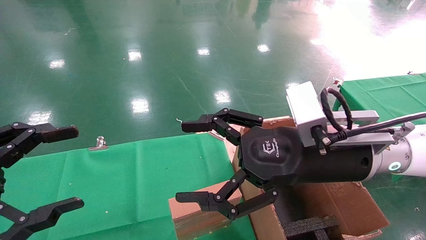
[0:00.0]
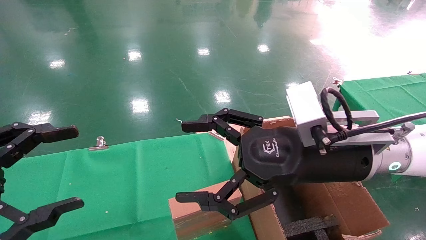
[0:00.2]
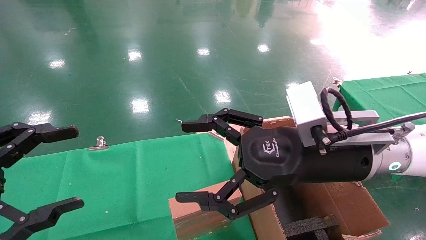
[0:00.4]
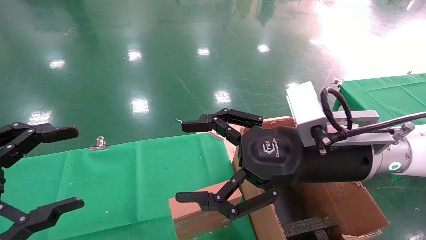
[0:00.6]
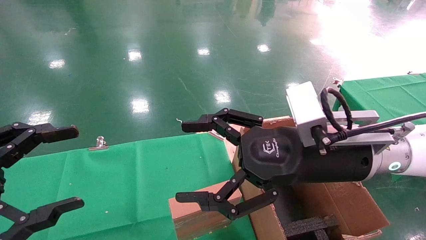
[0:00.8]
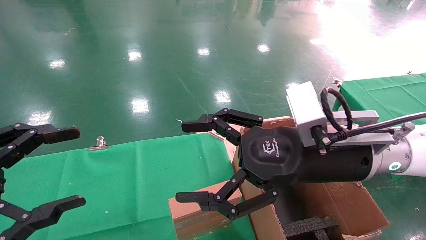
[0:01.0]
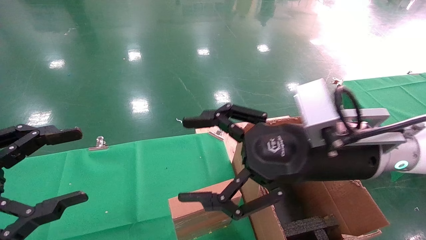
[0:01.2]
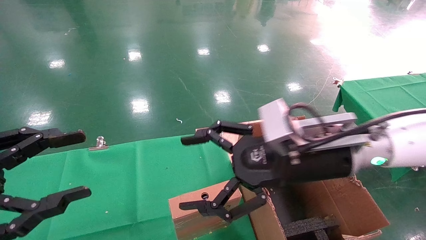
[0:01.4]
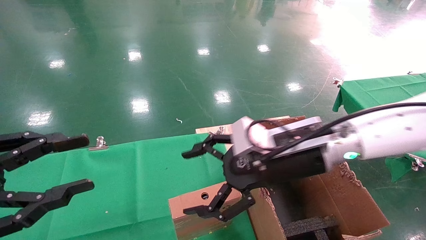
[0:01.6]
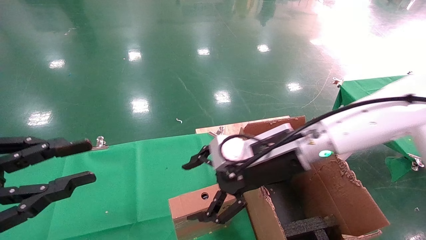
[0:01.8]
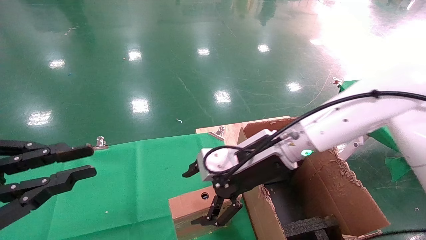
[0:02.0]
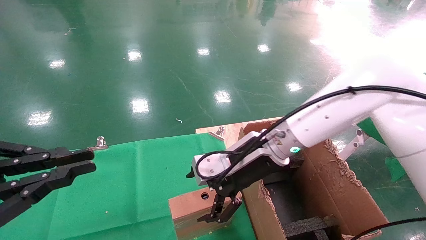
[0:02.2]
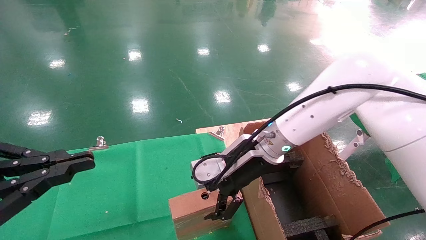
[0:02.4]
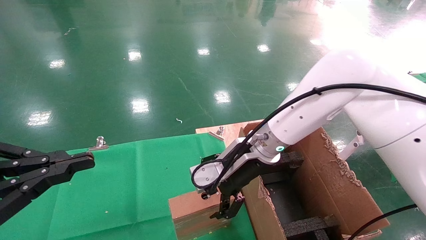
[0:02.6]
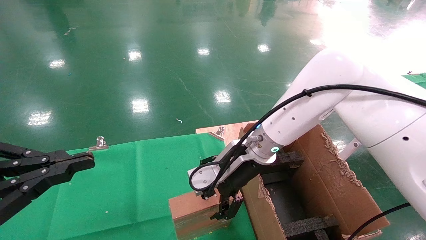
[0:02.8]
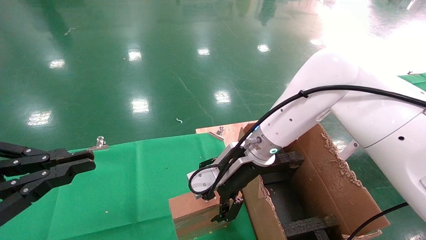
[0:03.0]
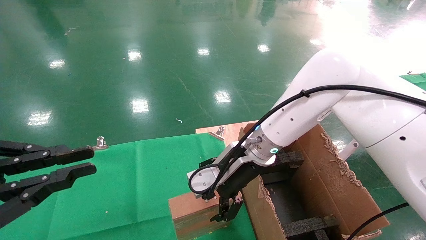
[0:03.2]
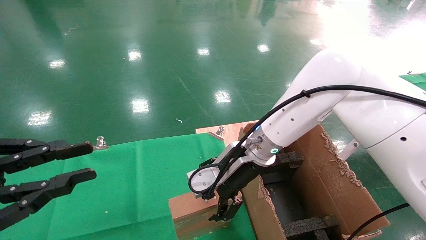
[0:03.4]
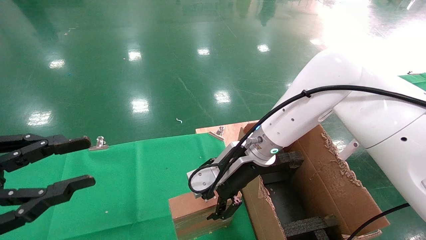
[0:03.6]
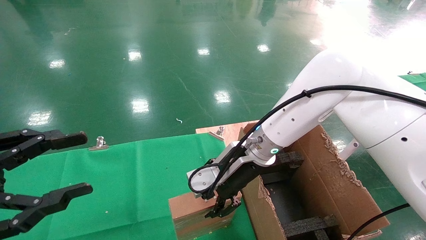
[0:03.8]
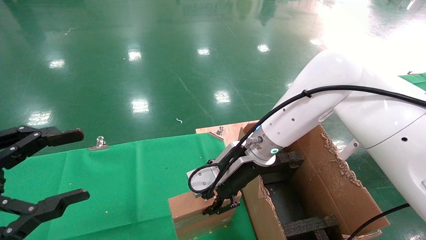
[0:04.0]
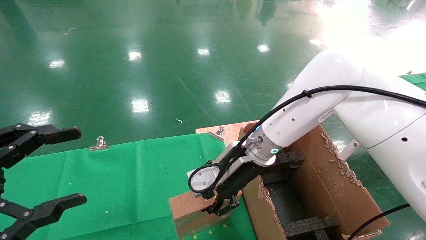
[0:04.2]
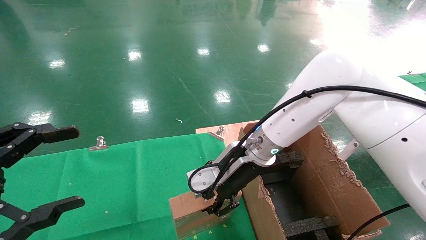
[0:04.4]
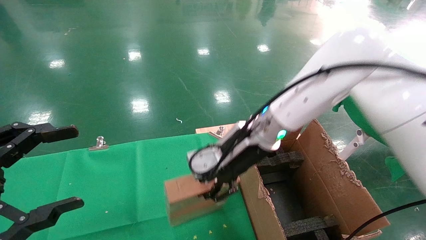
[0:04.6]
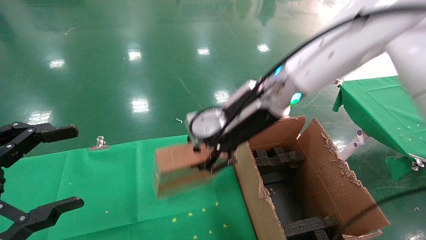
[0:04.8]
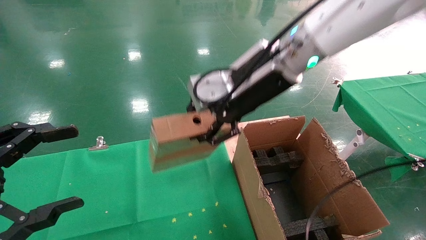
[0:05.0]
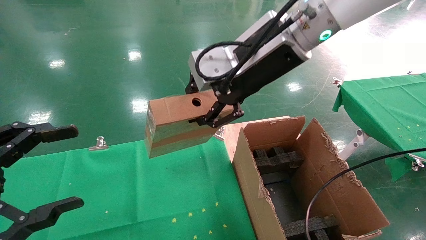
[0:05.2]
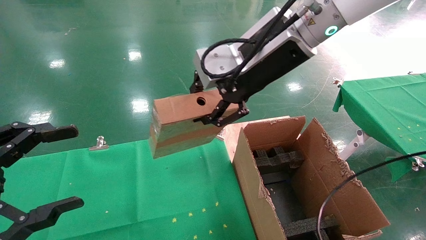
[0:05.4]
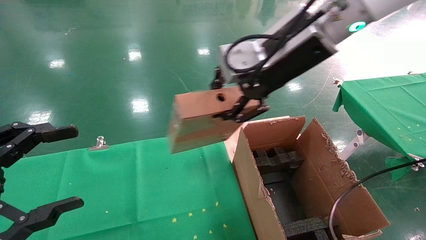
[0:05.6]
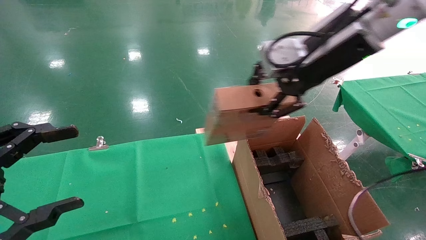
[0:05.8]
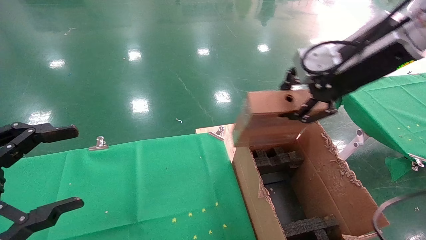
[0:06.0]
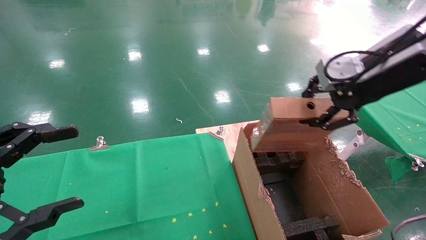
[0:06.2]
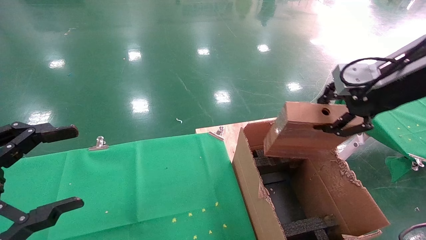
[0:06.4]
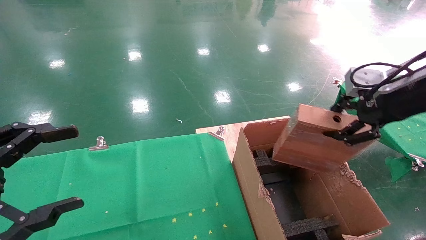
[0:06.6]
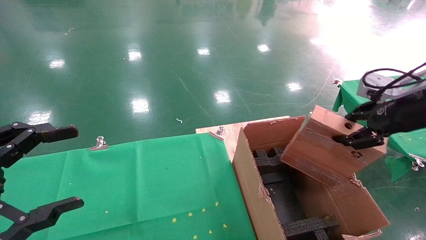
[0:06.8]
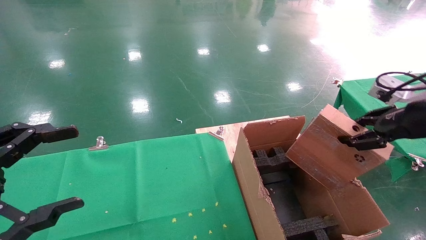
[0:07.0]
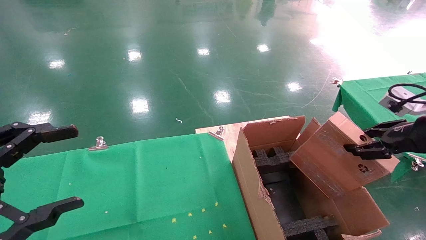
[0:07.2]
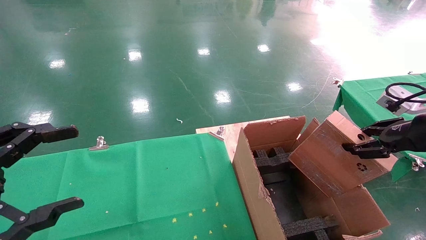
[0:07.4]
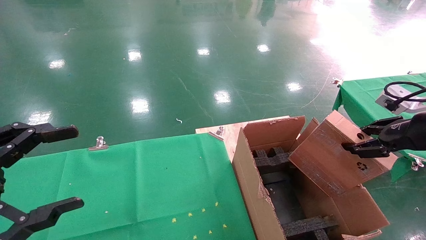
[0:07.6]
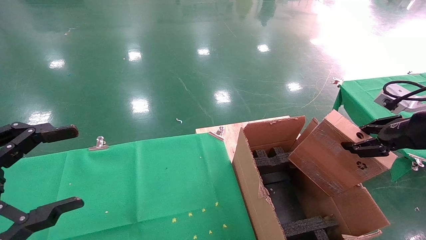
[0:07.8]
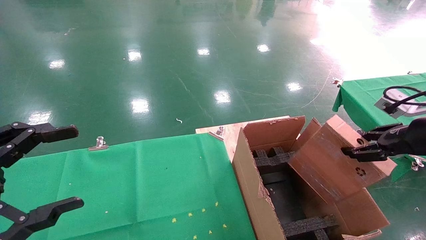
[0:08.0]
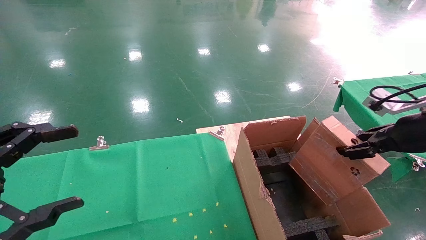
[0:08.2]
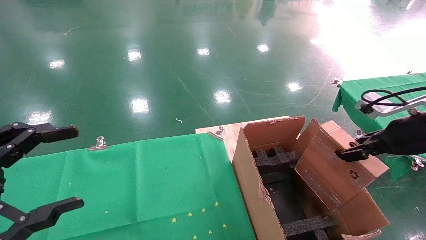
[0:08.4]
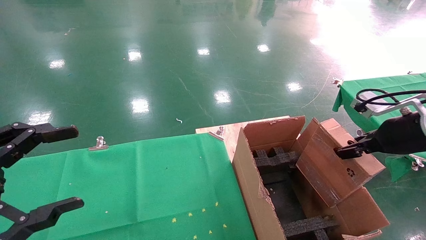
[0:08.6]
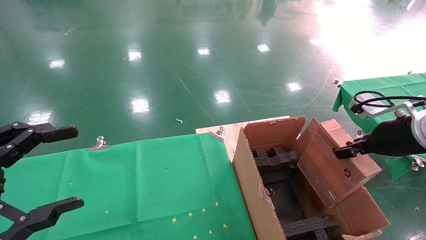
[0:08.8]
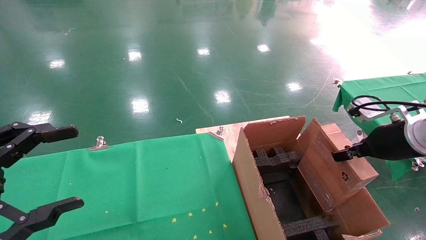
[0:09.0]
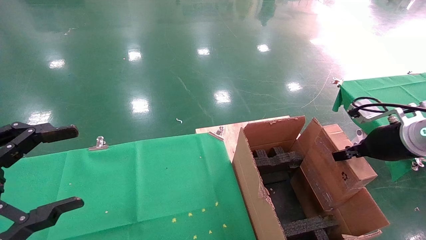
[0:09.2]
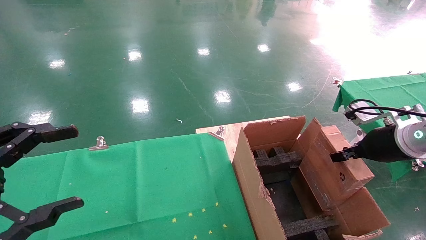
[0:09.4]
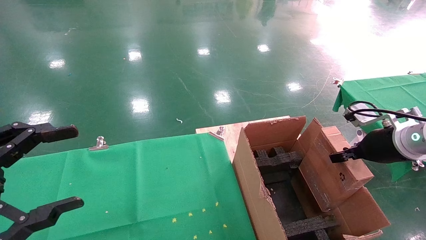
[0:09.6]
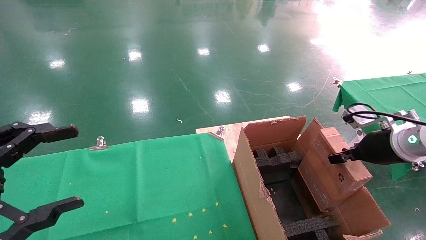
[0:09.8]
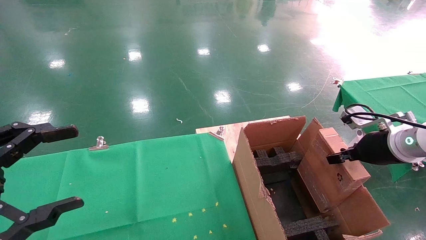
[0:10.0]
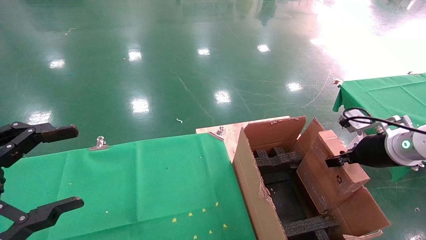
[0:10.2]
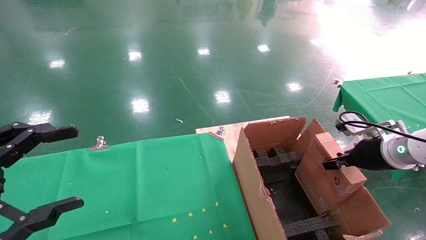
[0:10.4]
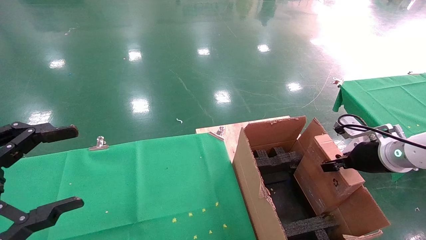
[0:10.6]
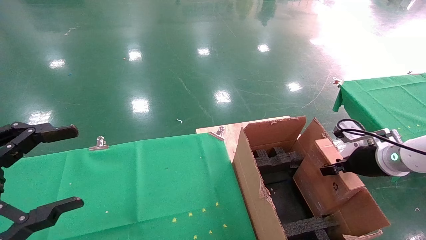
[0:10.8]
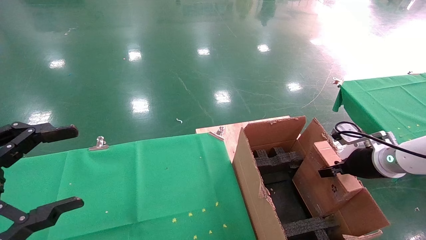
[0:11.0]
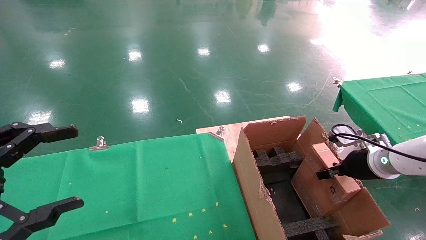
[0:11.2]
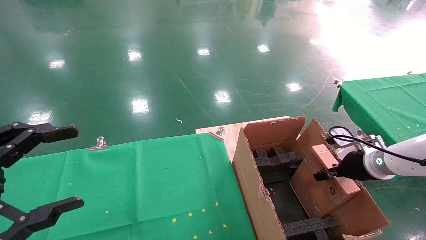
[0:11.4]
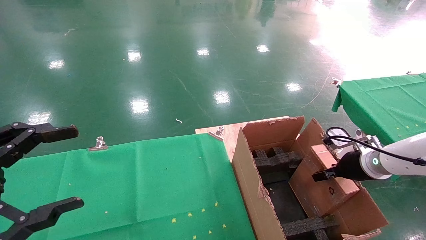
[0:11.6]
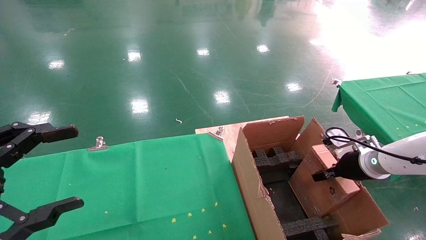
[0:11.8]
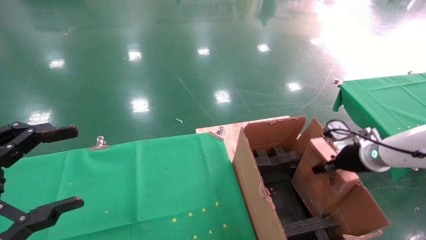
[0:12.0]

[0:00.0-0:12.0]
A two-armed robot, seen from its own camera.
Task of the whole recording: using a robotic arm to pick up a cardboard box and palace it the carton.
Step, 0:01.4 to 0:04.2: Pick up the mouse and the power cord paper box.
0:00.0 to 0:01.6: The right gripper shifts some 5 cm forward, while the left gripper closes its fingers.
0:01.6 to 0:03.0: The right gripper moves forward and to the left, roughly 10 cm; the left gripper closes up.
0:03.0 to 0:04.4: The right gripper closes its fingers; the left gripper opens.
0:04.4 to 0:06.0: The right gripper heads upward, to the right and backward, covering roughly 25 cm.
0:06.0 to 0:07.6: The right gripper goes some 20 cm to the right and downward.
0:07.6 to 0:09.0: The right gripper shifts by roughly 10 cm.
0:09.0 to 0:10.4: The right gripper is displaced downward by roughly 5 cm.
0:10.4 to 0:12.0: The right gripper moves about 5 cm.

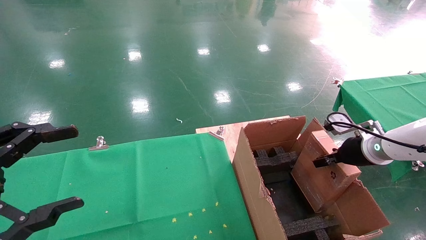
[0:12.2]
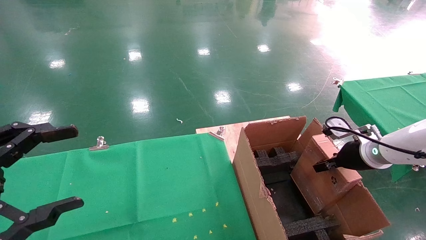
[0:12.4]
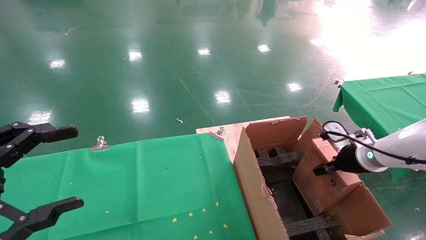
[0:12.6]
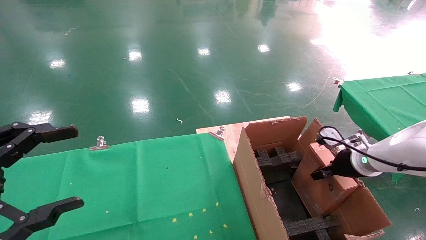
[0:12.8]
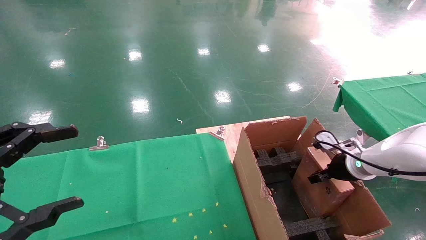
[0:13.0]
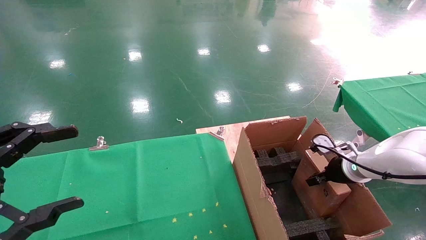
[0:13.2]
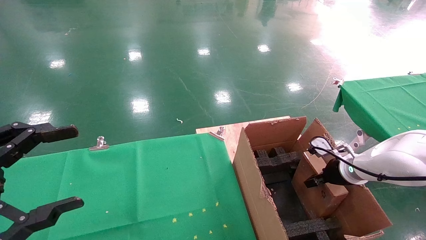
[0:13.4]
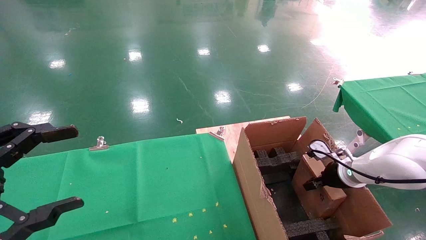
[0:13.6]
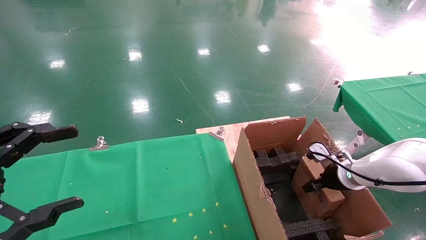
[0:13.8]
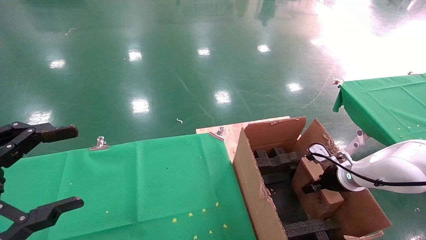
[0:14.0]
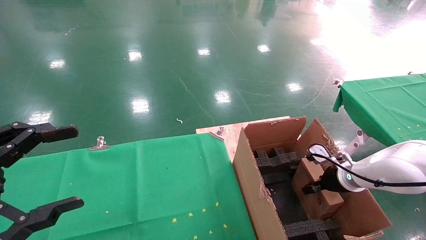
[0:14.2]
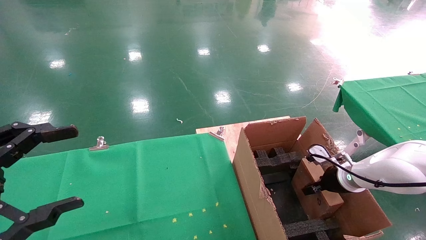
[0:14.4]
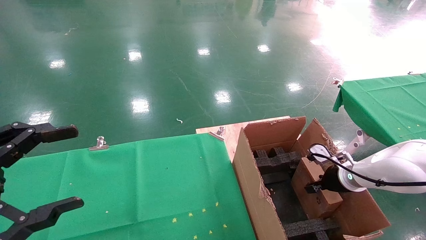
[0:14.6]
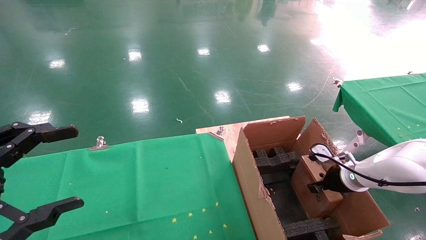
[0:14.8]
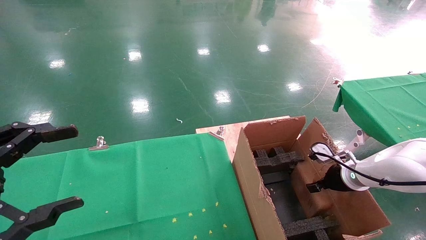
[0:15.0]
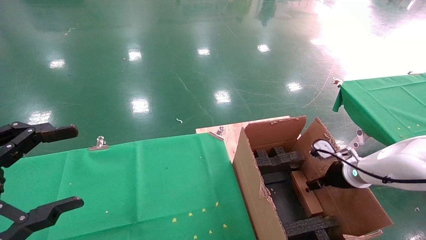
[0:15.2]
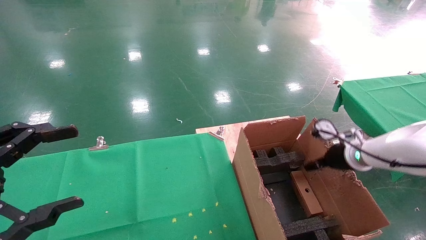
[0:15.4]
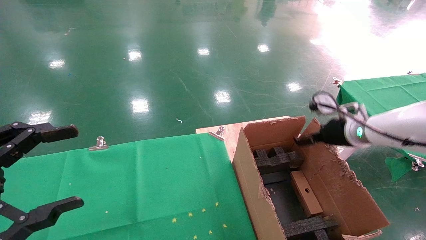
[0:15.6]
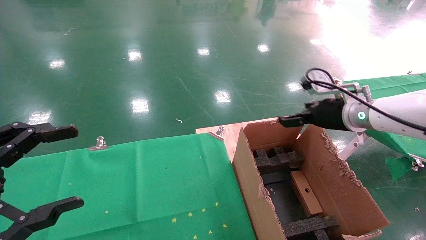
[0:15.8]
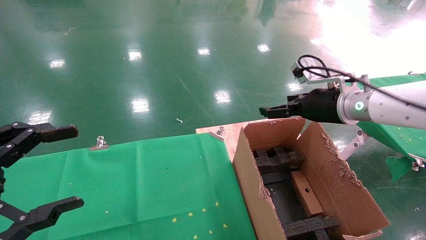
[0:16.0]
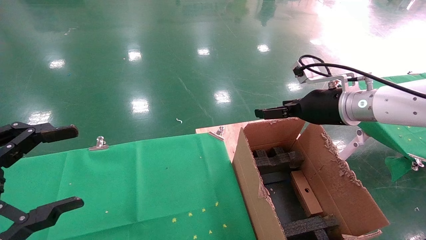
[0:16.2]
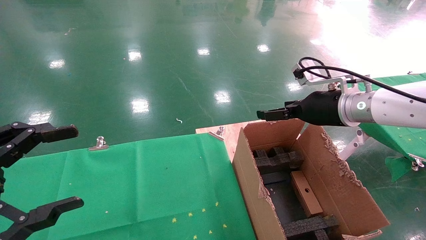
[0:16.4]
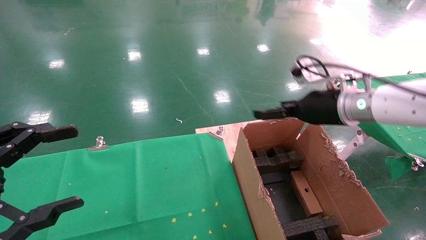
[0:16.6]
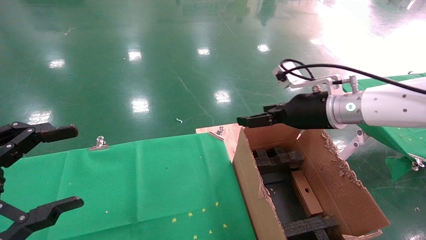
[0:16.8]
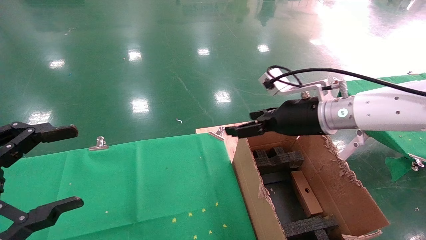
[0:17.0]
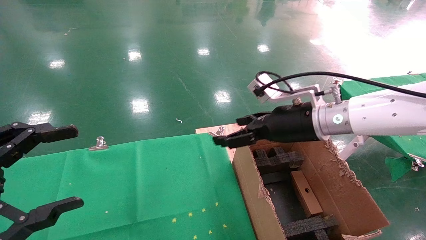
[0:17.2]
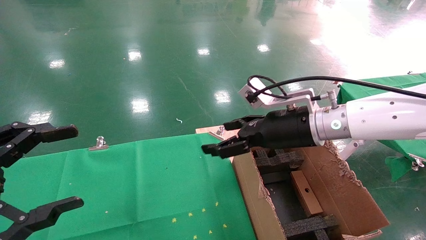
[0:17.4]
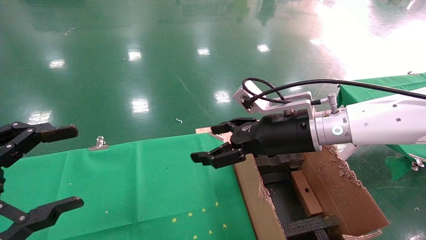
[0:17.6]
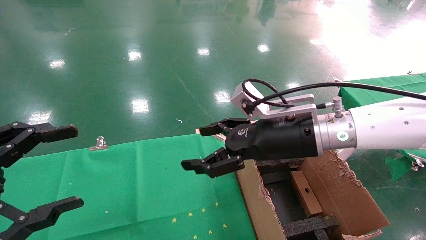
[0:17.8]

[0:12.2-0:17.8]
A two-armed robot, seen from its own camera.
Task of the whole recording: using a robotic arm to pick up a cardboard box and palace it the carton.
Step, 0:12.2 to 0:15.2: Place the mouse and the power cord paper box into the container.
0:12.2 to 0:13.6: The right gripper shifts approximately 10 cm downward.
0:13.6 to 0:15.0: The right gripper opens.
0:15.0 to 0:16.4: The right gripper moves upward and to the left, about 20 cm, and opens.
0:16.4 to 0:17.8: The right gripper heads to the left, covering about 10 cm.
